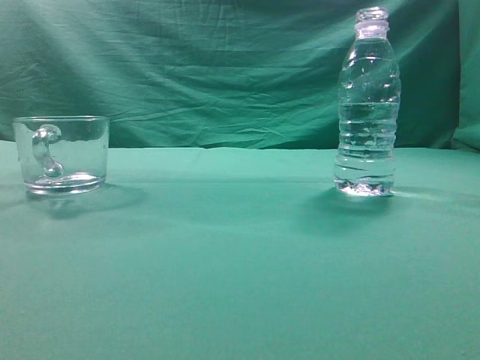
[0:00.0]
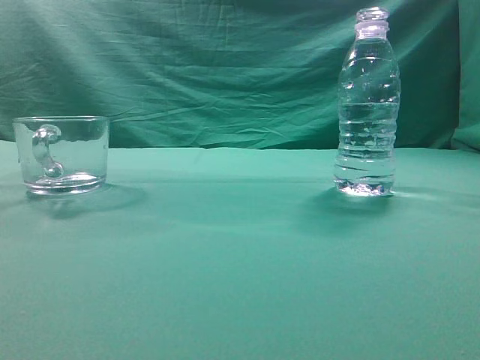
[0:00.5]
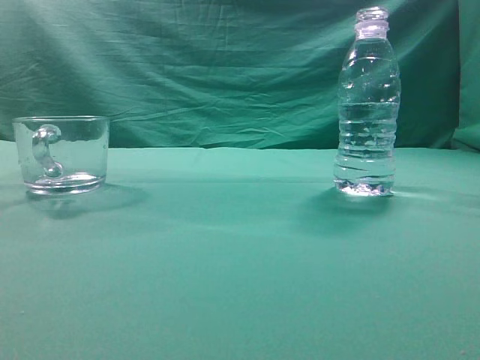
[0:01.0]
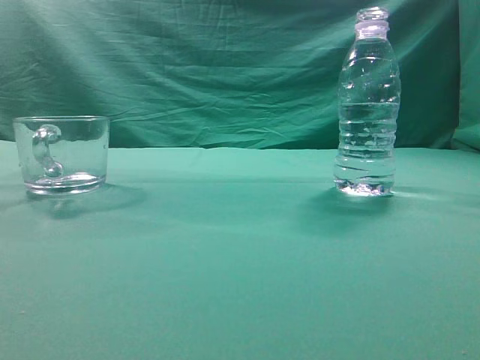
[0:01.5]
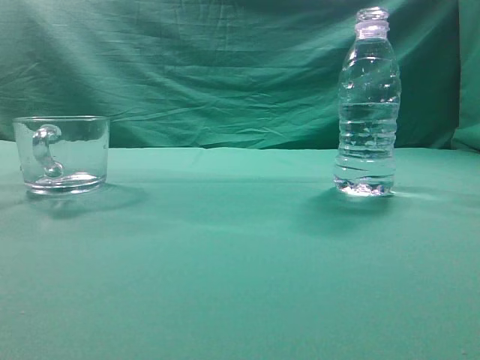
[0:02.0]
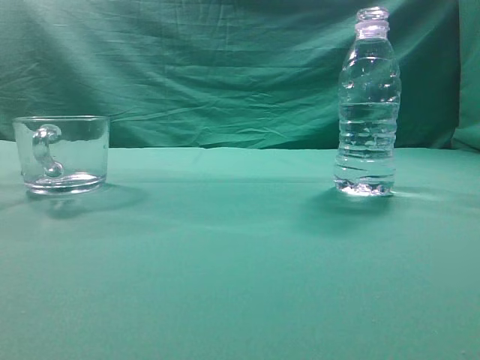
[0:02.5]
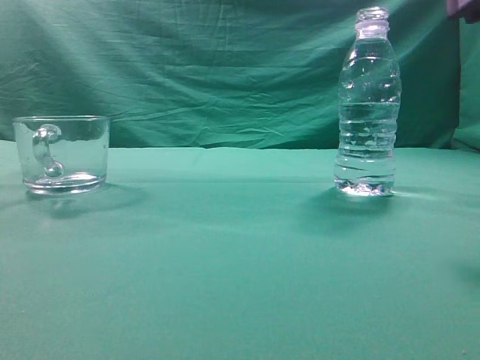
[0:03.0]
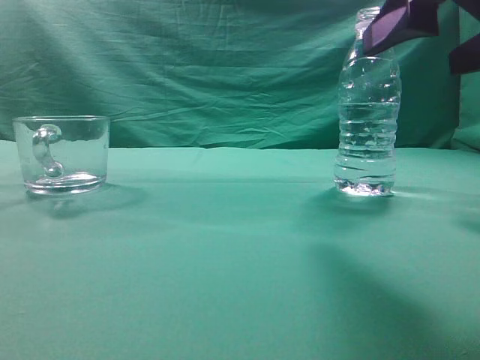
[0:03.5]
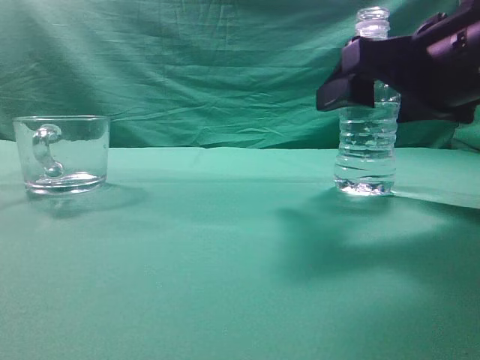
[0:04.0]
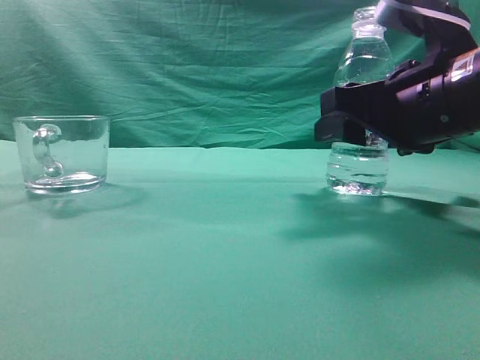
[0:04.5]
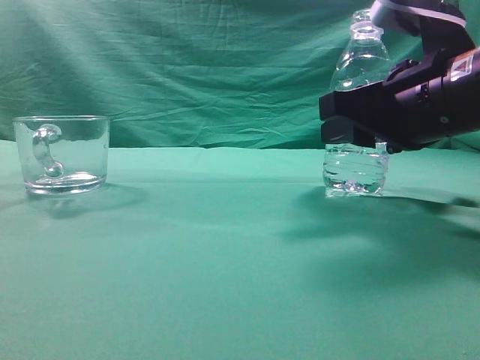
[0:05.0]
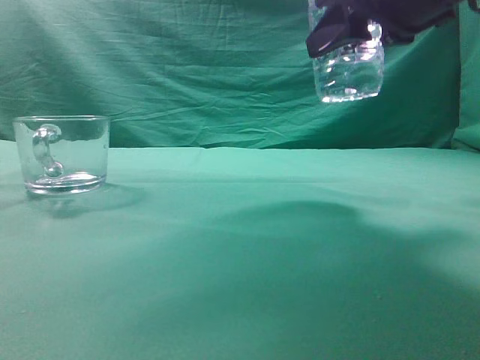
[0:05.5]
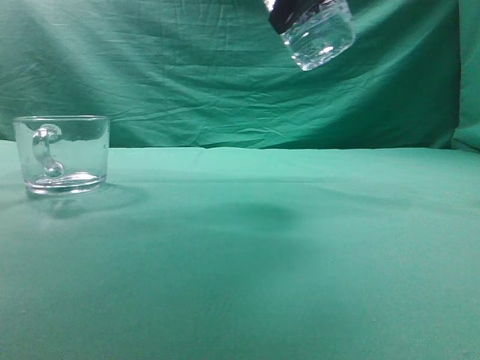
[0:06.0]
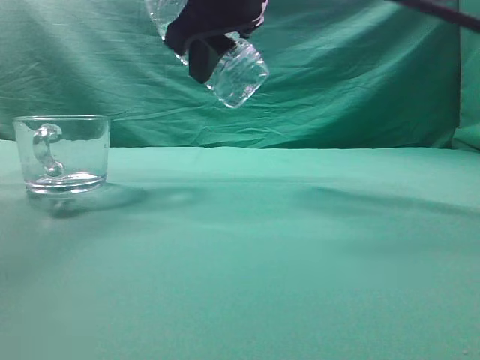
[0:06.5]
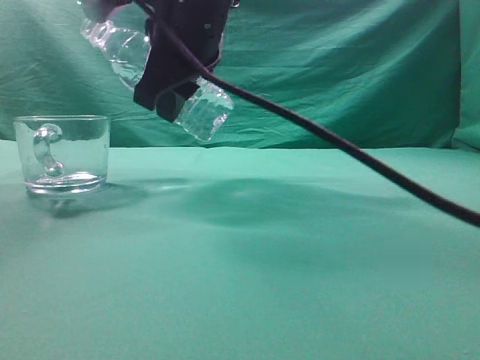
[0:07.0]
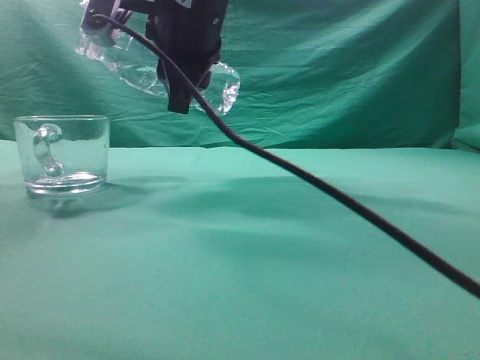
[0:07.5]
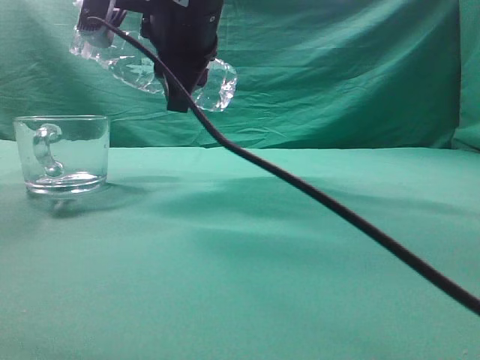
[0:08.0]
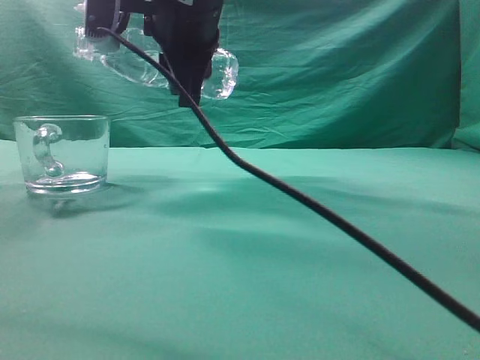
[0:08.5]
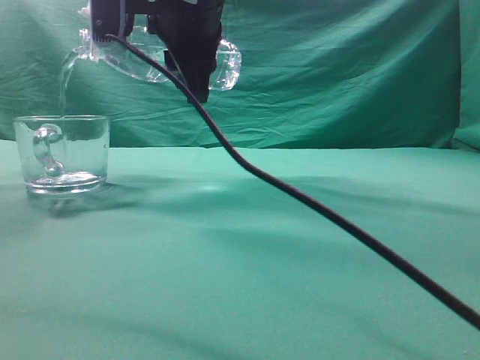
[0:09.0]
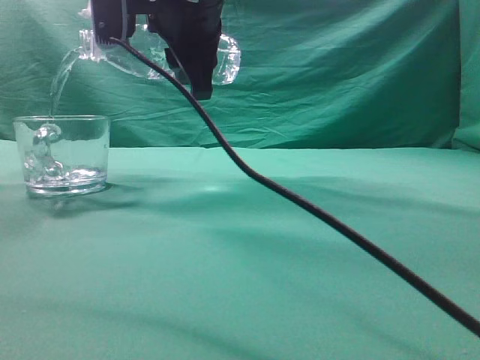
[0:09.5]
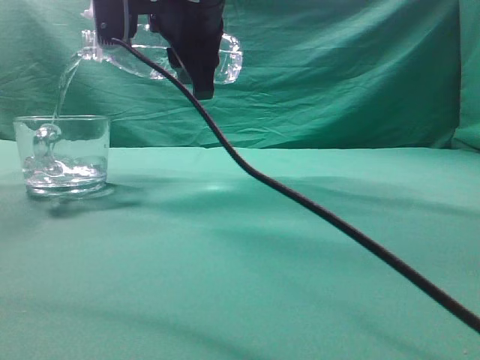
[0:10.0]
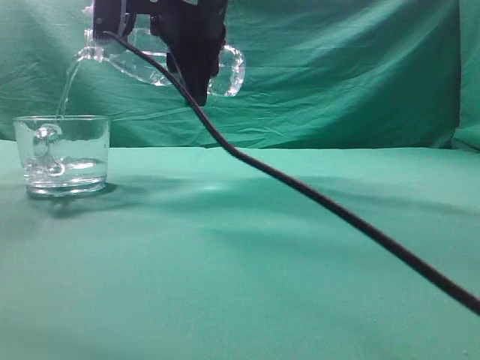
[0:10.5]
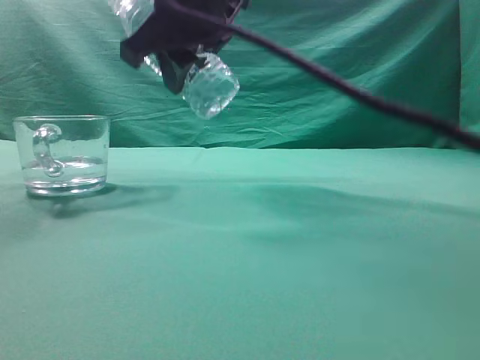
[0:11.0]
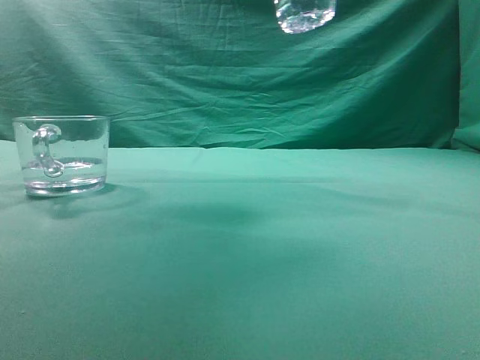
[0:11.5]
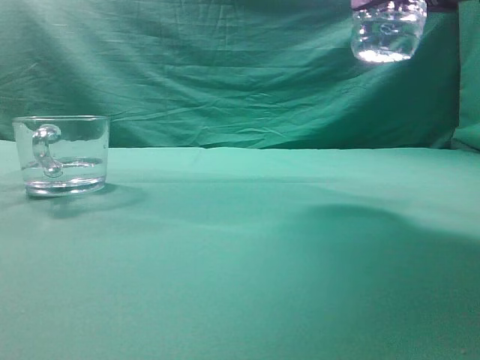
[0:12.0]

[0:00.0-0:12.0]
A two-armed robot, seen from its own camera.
Task of the whole recording: pick up the water bottle and pour the water in it into the glass.
Step, 0:00.0 to 0:05.0: Grasp the mineral water bottle.
Step, 0:05.5 to 0:10.5: Pour water into the teacup.
0:02.0 to 0:04.0: The right gripper is displaced forward, to the left and downward by roughly 25 cm, and opens.
0:04.0 to 0:06.0: The right gripper travels upward and to the left by about 15 cm, and closes its fingers.
0:06.0 to 0:08.0: The right gripper is displaced to the left by some 15 cm.
0:08.0 to 0:10.0: There are only small adjustments of the grippers.
0:10.0 to 0:12.0: The right gripper moves to the right, roughly 25 cm.

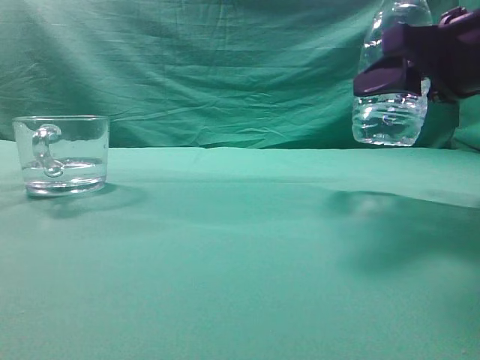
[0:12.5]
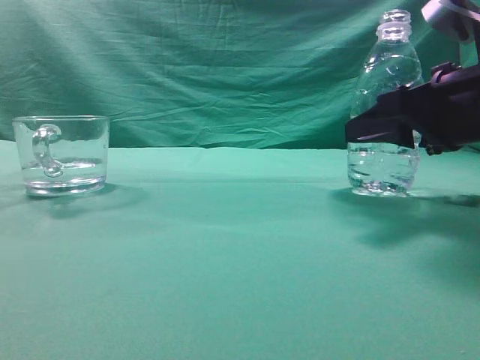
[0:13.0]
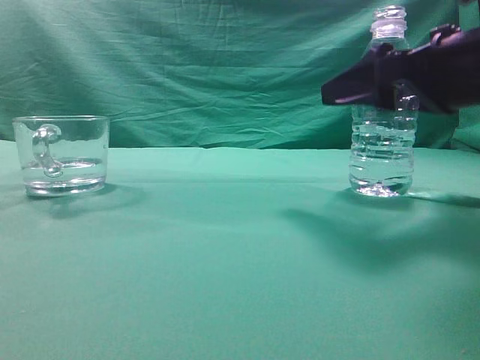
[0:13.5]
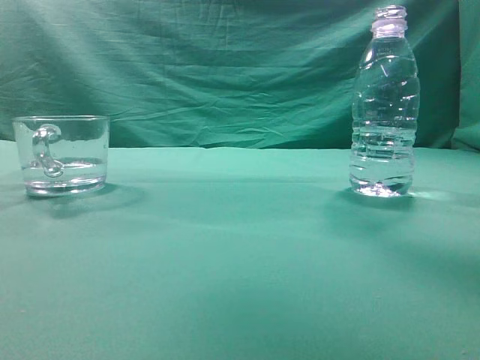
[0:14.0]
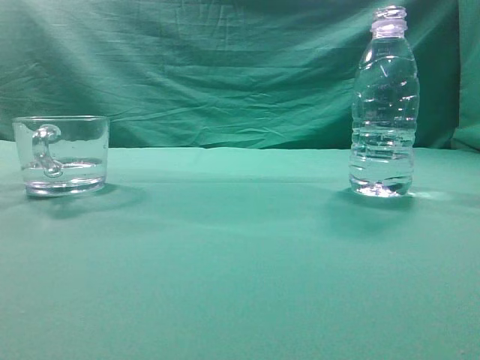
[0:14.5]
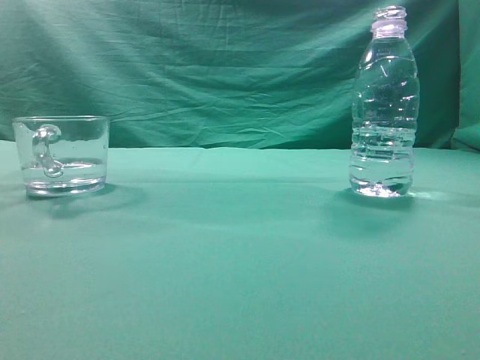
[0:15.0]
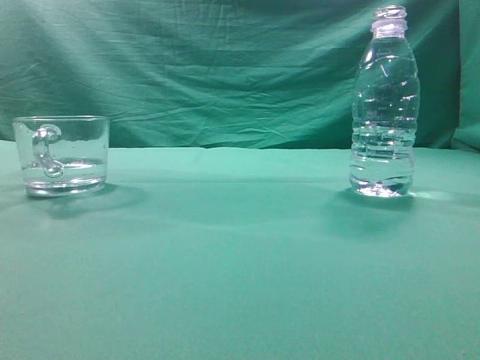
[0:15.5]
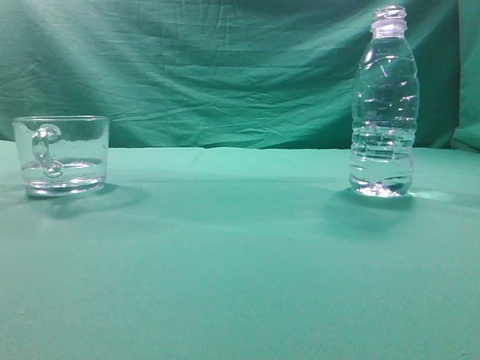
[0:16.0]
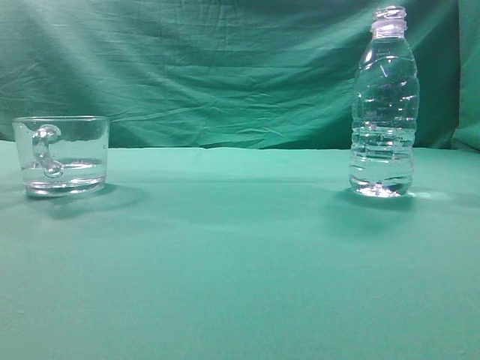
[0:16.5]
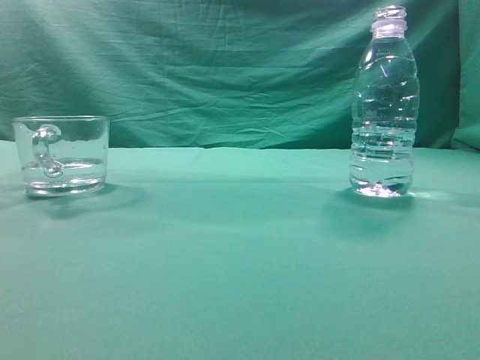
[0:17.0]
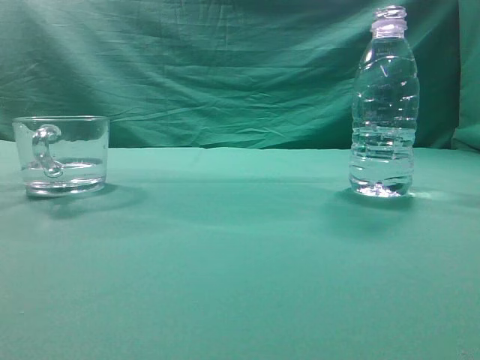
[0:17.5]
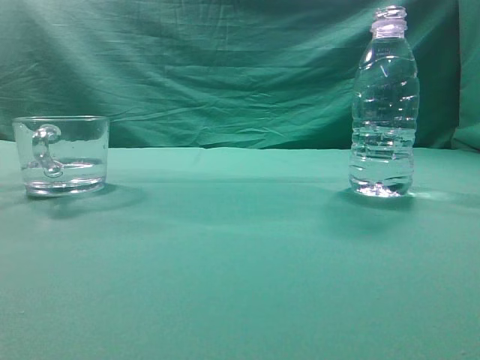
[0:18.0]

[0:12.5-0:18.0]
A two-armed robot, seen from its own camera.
Task of the whole recording: pick up the water bottle and pour the water in it into the glass.
0:12.5 to 0:14.5: The right gripper is displaced upward and backward by about 25 cm, and closes.
